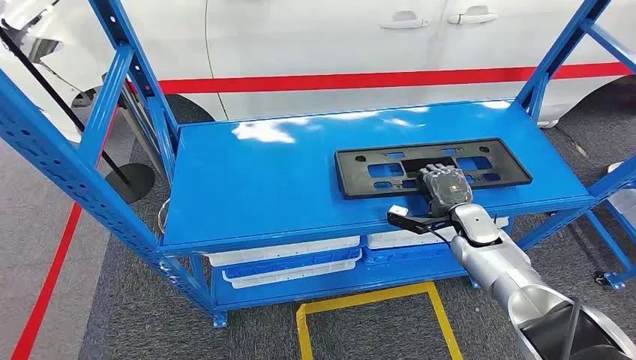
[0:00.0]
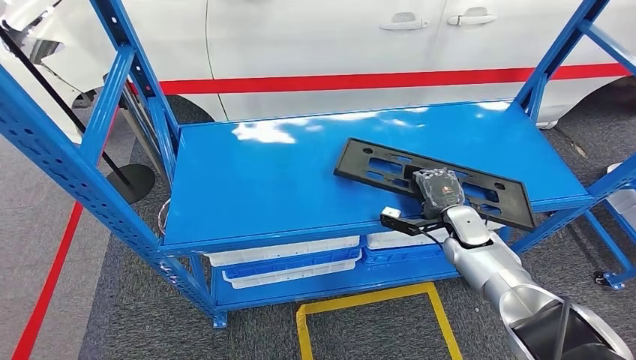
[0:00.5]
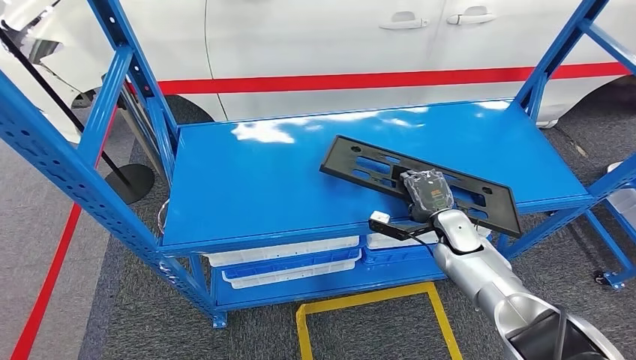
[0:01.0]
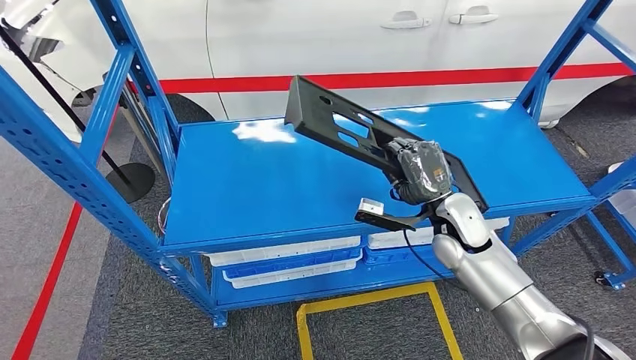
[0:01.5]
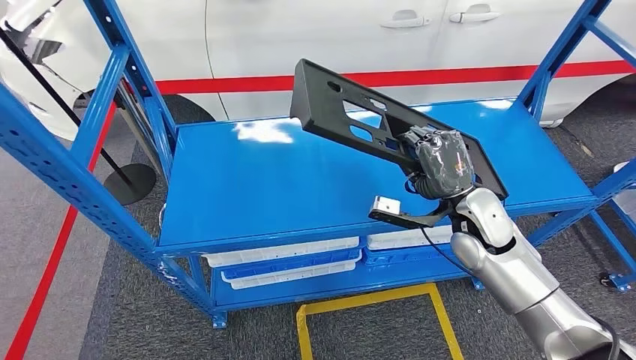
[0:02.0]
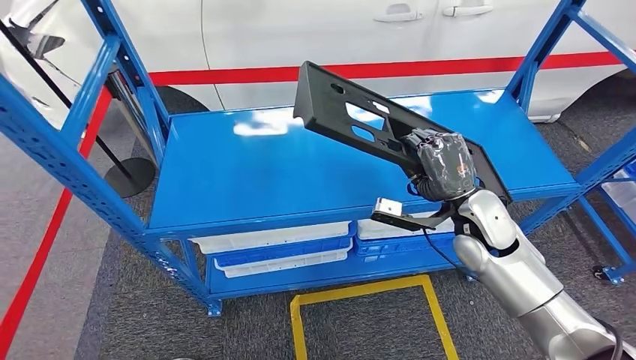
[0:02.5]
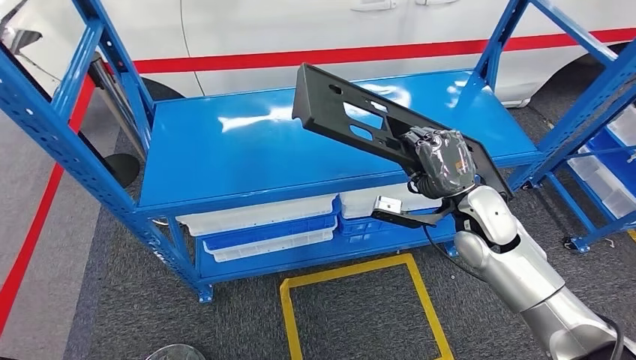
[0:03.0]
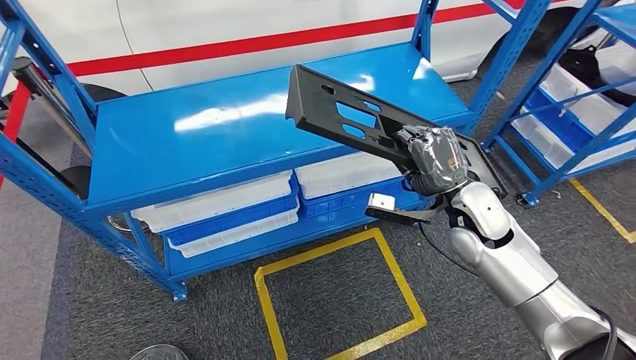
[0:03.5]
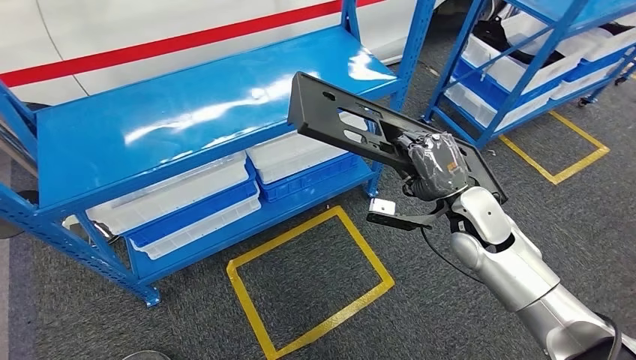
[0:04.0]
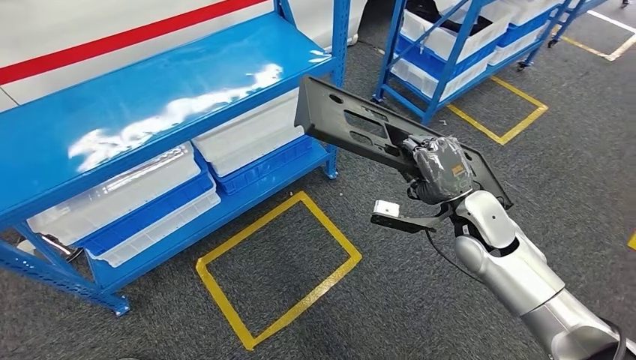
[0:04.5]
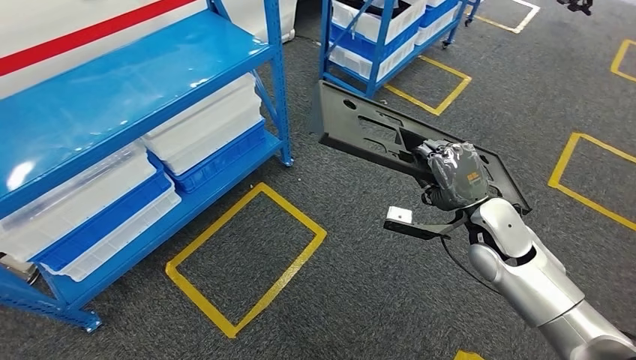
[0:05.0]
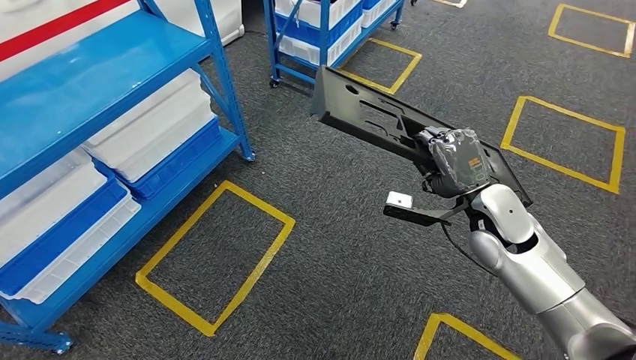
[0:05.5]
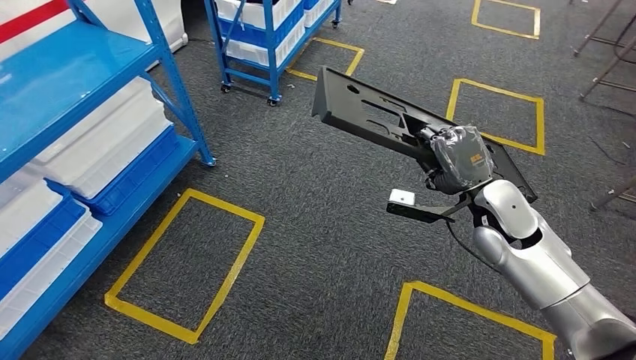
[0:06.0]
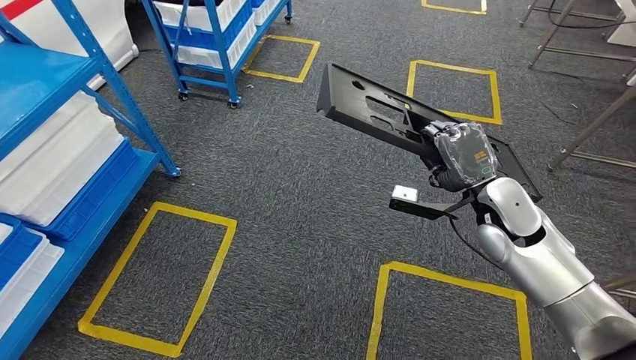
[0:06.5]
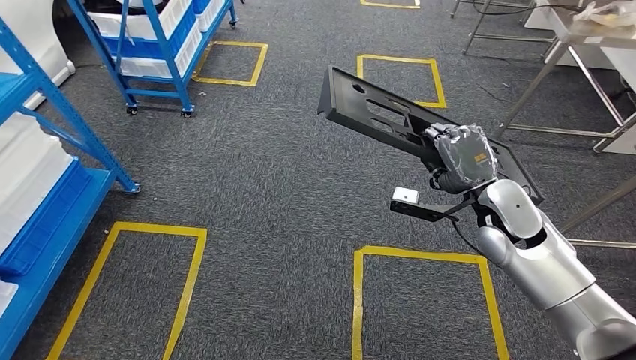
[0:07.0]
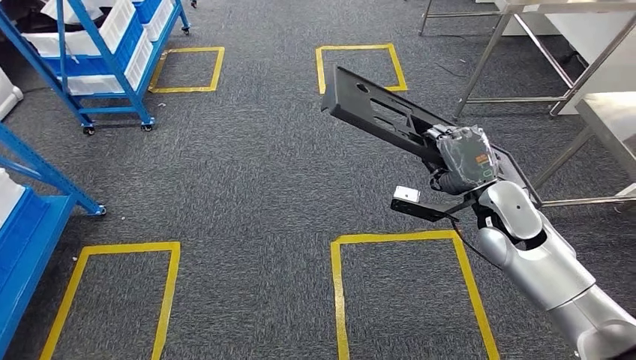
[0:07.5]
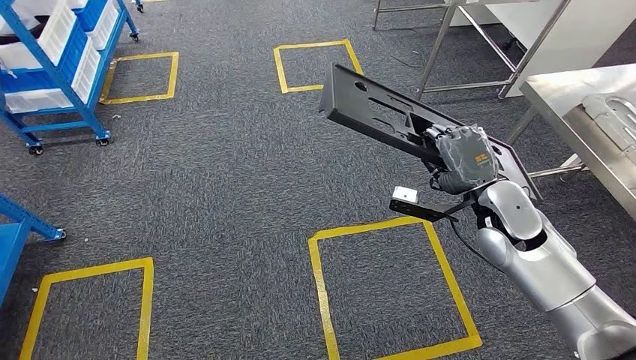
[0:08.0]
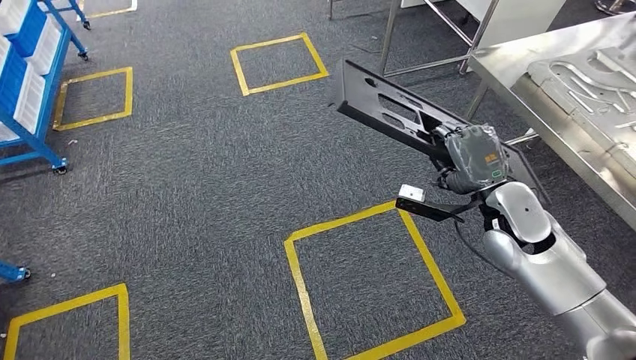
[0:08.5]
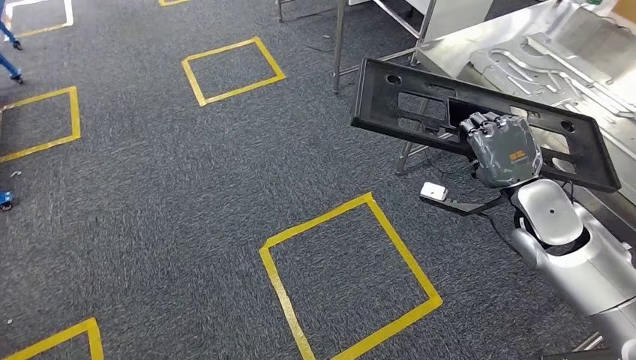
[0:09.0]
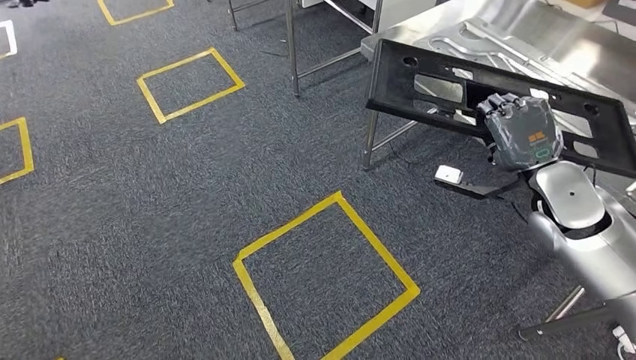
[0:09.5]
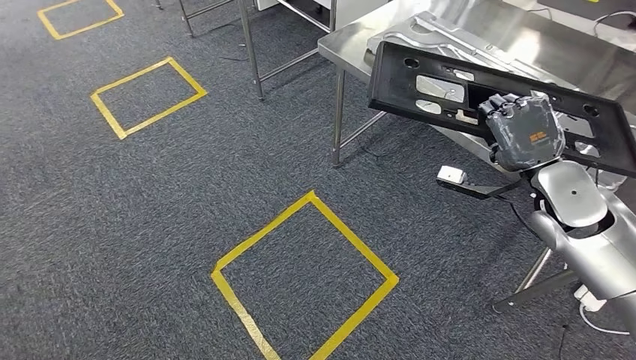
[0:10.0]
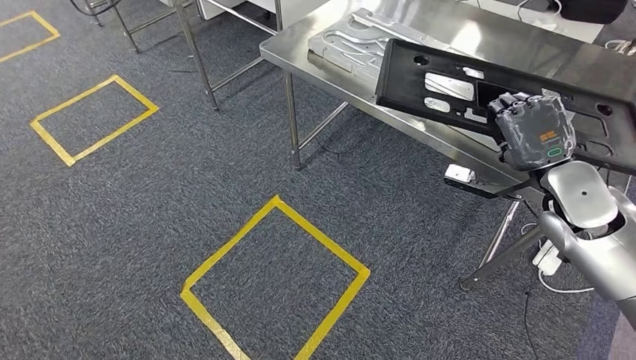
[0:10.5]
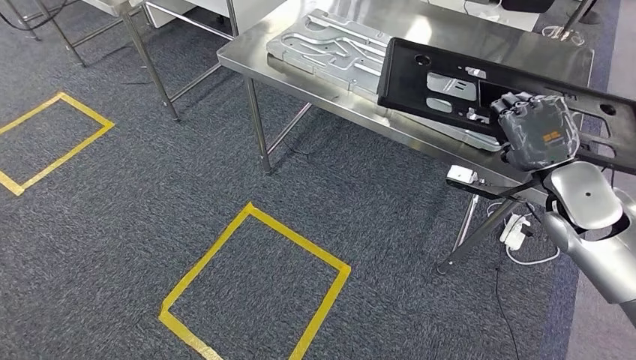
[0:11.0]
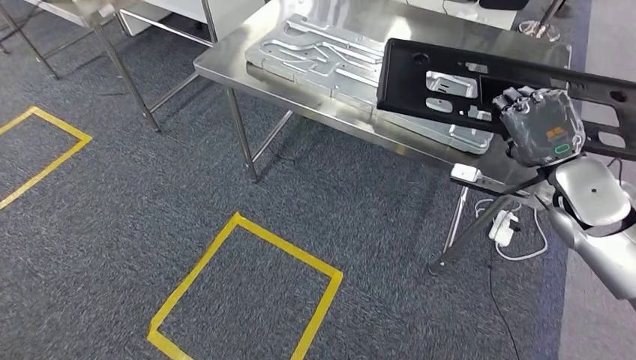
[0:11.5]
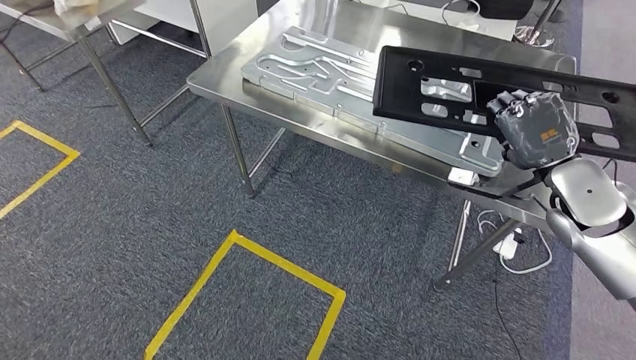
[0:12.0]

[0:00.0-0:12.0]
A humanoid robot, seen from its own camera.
Step, 0:00.0 to 0:05.0: Pick up the large material from the shelf.

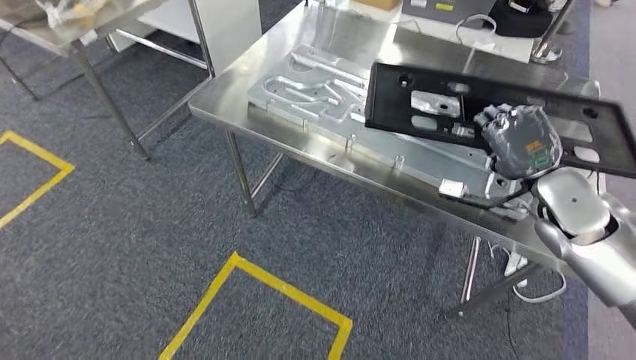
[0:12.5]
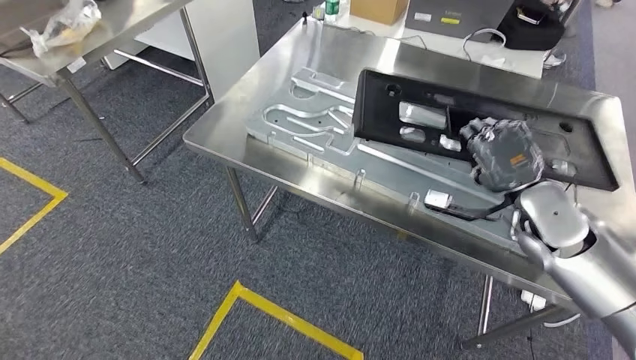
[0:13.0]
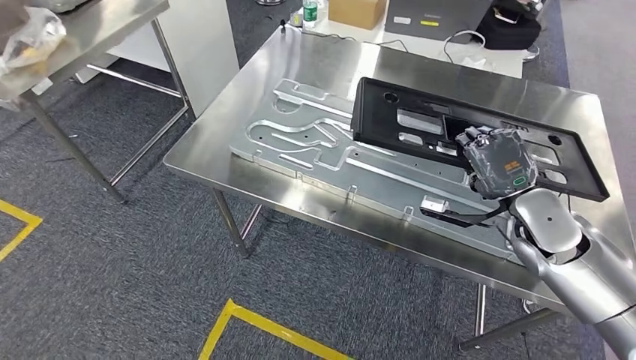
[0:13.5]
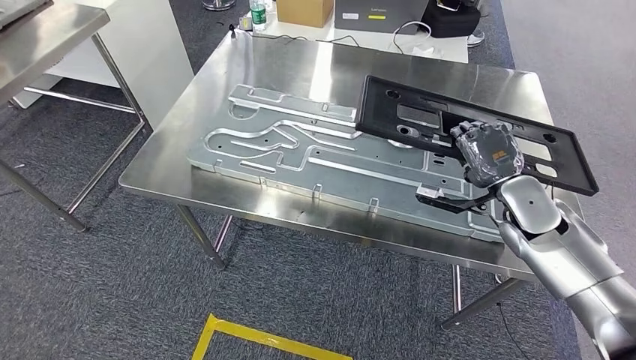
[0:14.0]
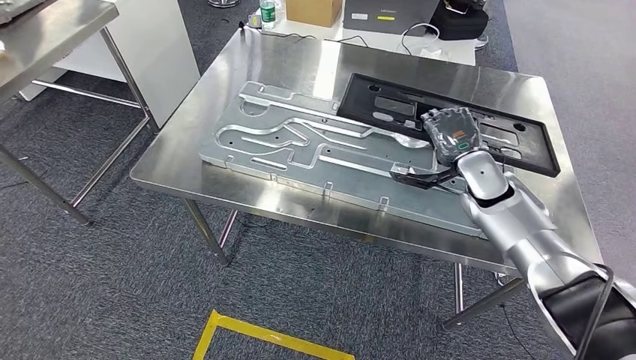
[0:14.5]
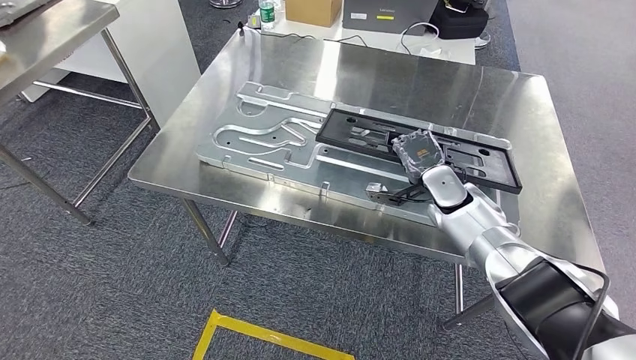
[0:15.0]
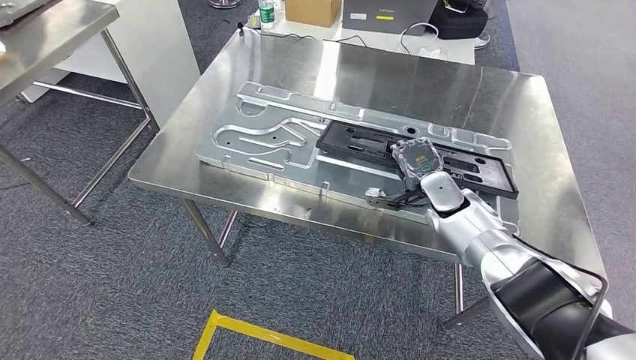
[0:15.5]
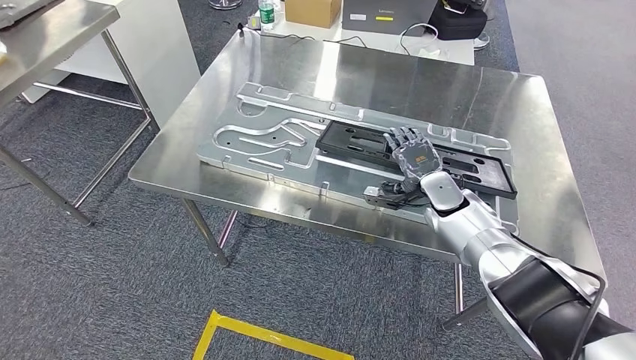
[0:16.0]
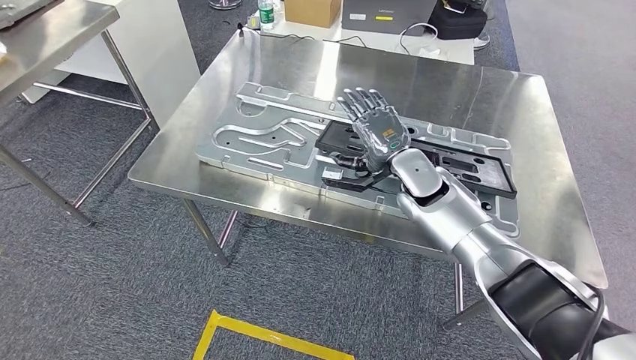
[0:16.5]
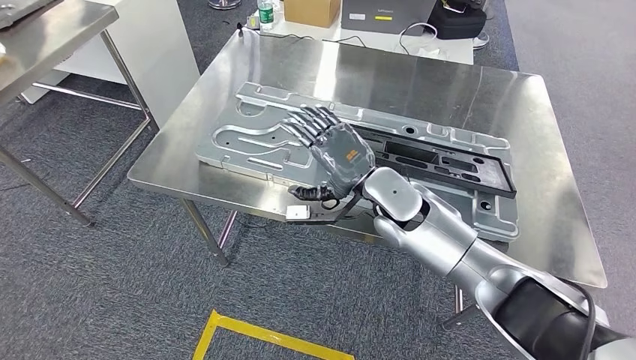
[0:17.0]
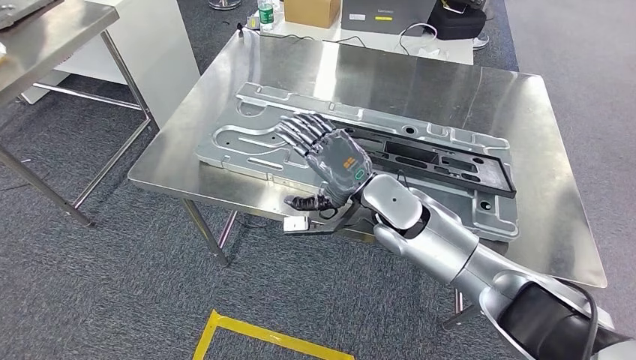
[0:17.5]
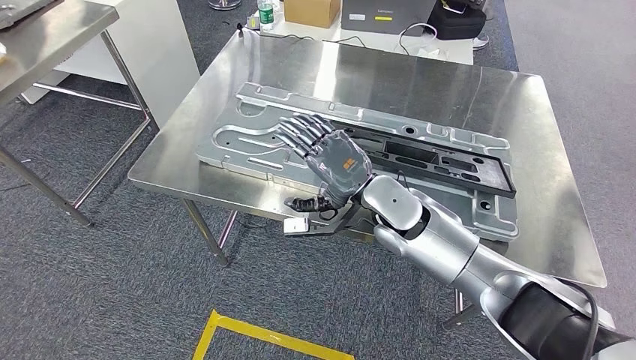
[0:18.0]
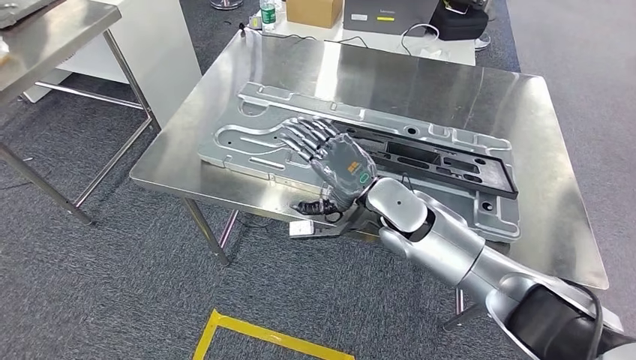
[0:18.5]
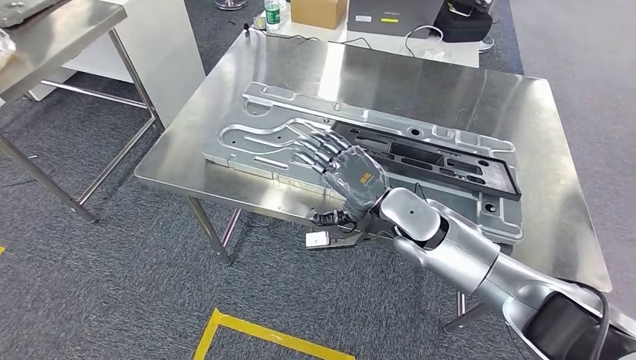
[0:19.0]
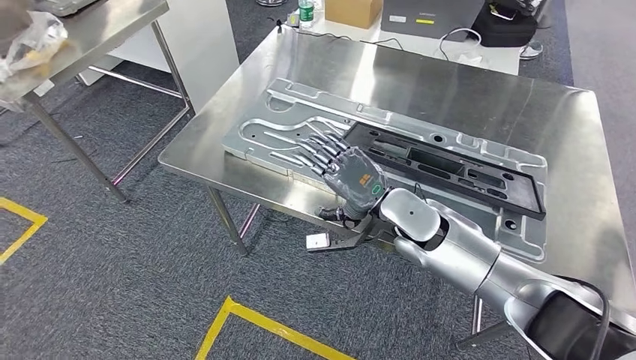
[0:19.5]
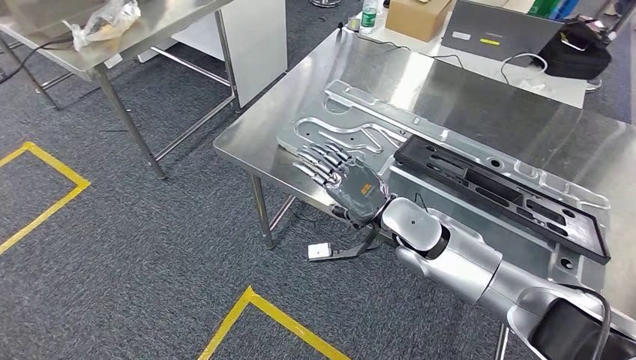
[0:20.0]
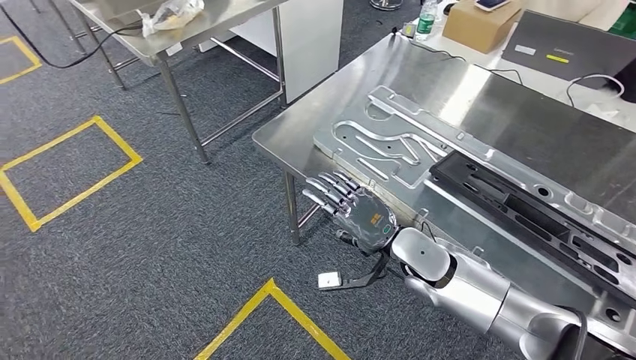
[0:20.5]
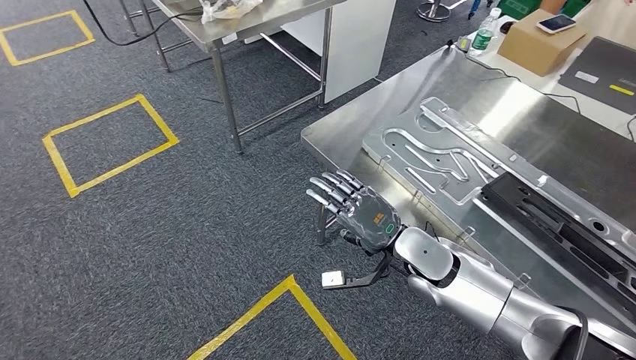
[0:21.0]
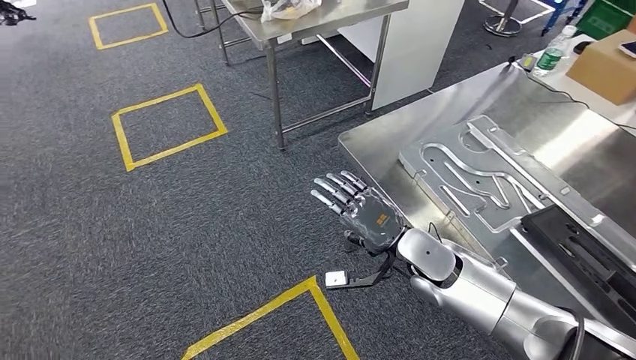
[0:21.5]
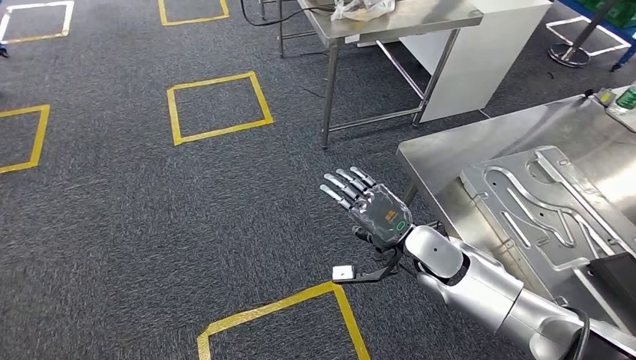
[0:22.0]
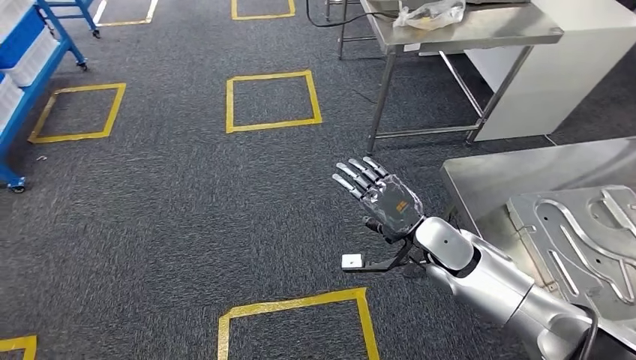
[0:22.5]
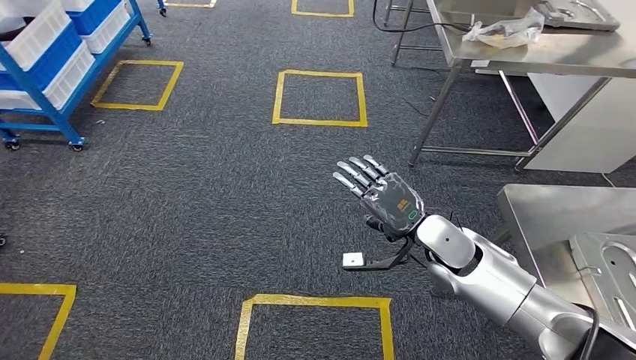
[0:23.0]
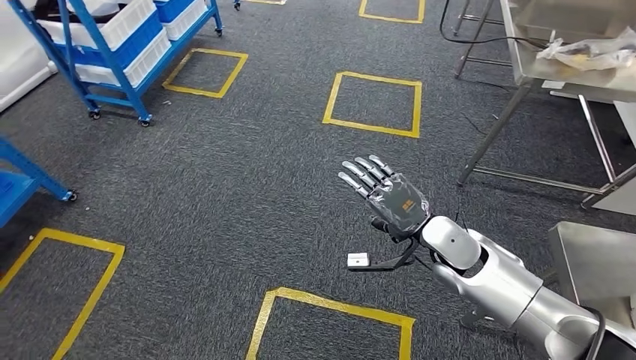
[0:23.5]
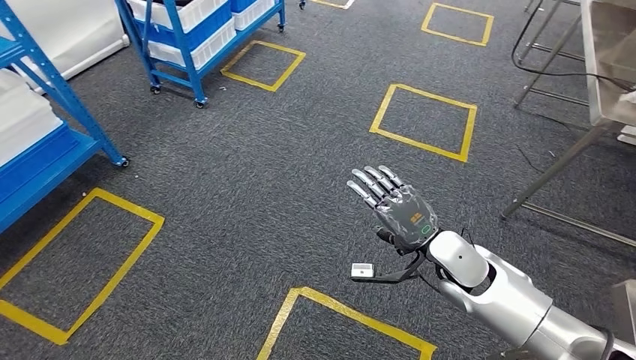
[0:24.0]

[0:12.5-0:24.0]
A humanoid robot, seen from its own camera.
Step, 0:13.0 to 0:16.5: Insert the large material into the corresponding slot on the workbench.
0:16.5 to 0:18.5: The right hand moves to the left, some 5 cm.
